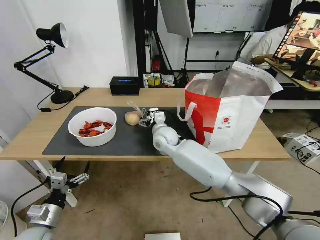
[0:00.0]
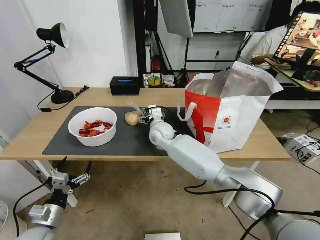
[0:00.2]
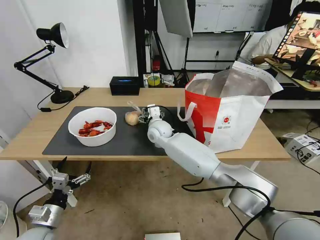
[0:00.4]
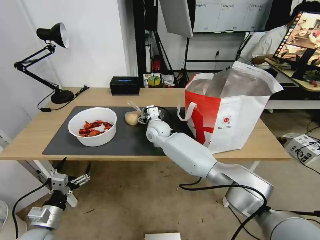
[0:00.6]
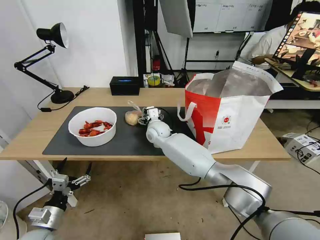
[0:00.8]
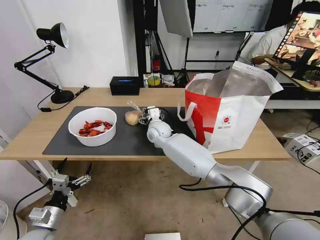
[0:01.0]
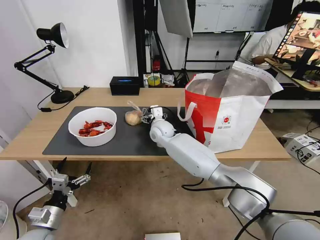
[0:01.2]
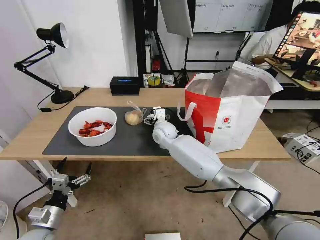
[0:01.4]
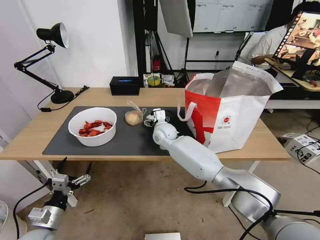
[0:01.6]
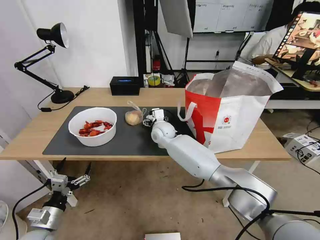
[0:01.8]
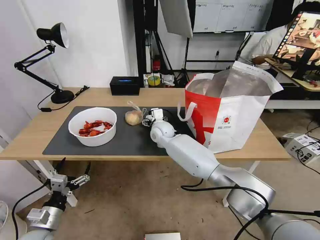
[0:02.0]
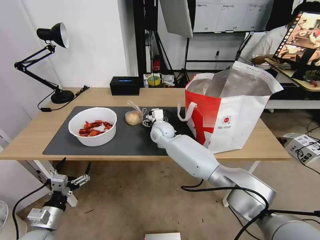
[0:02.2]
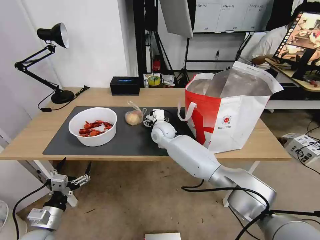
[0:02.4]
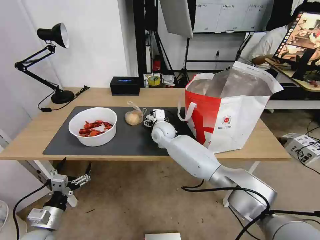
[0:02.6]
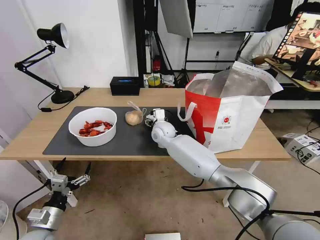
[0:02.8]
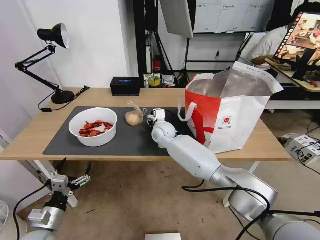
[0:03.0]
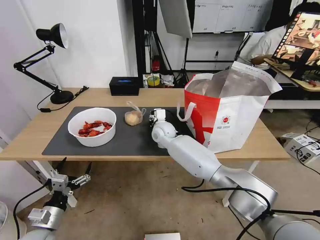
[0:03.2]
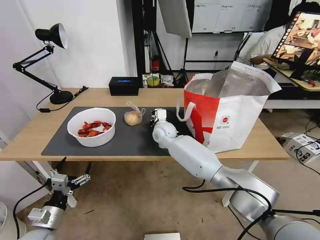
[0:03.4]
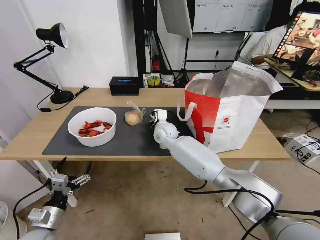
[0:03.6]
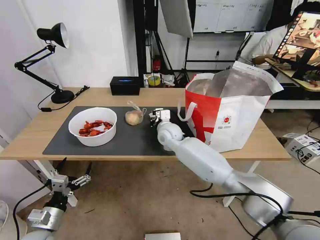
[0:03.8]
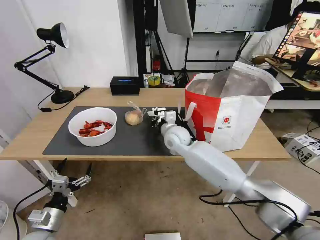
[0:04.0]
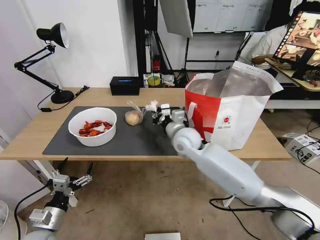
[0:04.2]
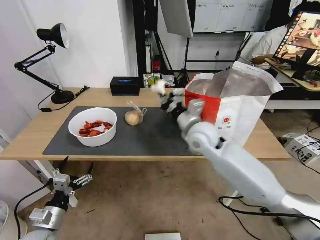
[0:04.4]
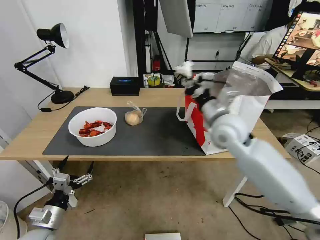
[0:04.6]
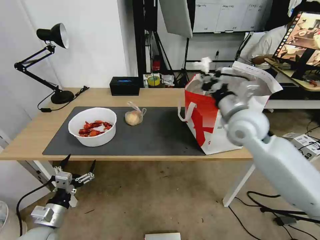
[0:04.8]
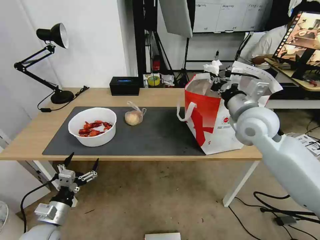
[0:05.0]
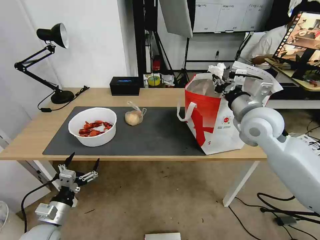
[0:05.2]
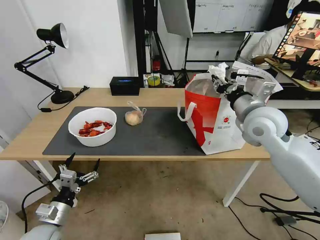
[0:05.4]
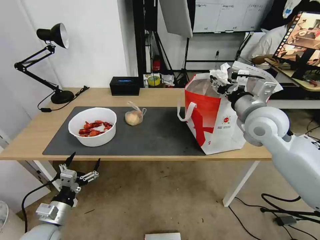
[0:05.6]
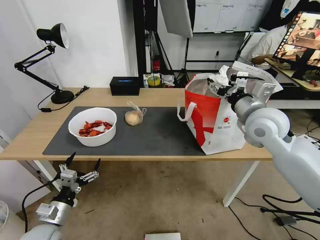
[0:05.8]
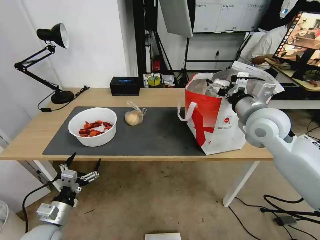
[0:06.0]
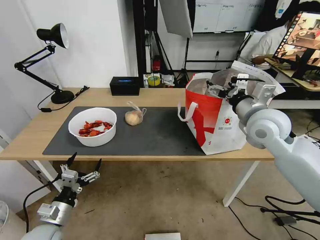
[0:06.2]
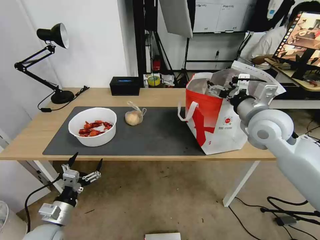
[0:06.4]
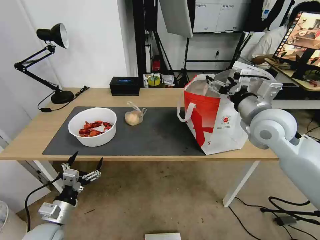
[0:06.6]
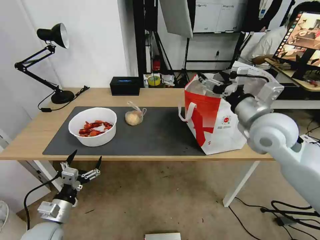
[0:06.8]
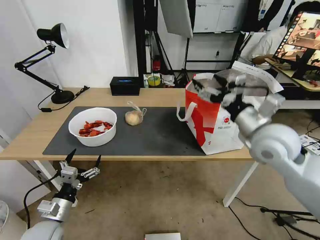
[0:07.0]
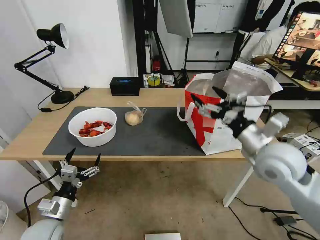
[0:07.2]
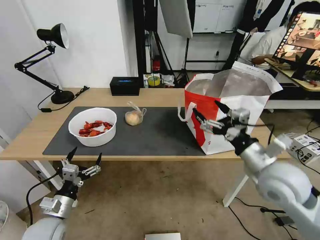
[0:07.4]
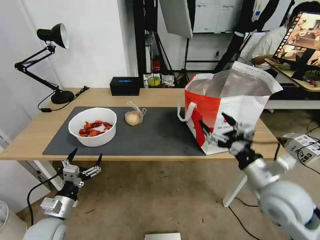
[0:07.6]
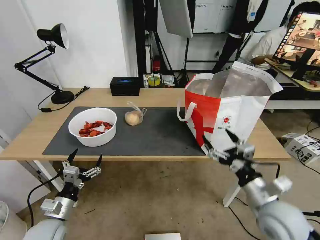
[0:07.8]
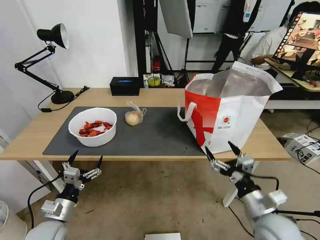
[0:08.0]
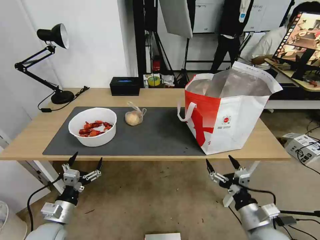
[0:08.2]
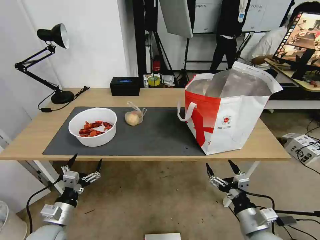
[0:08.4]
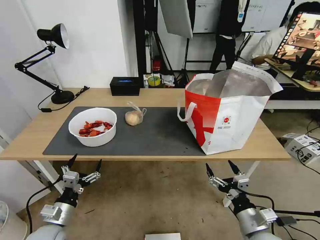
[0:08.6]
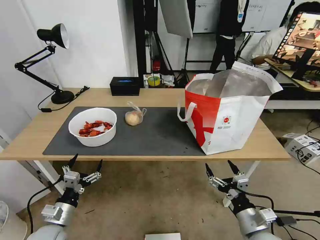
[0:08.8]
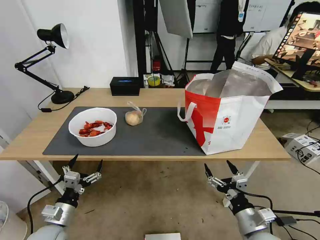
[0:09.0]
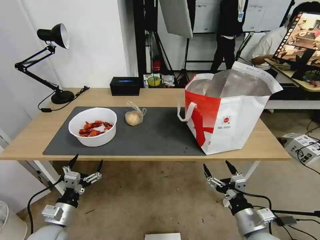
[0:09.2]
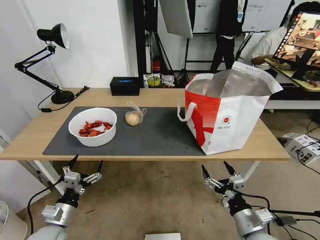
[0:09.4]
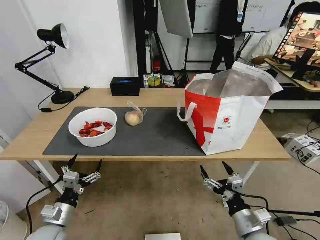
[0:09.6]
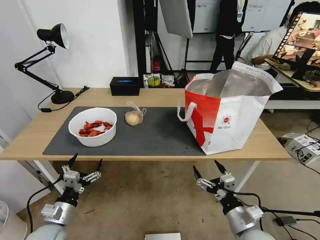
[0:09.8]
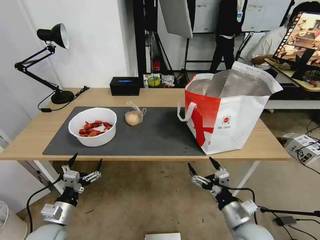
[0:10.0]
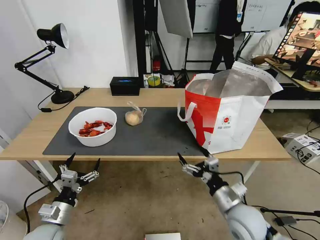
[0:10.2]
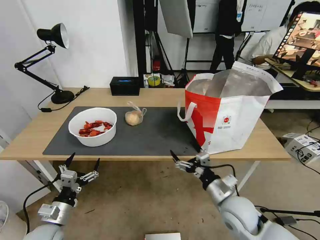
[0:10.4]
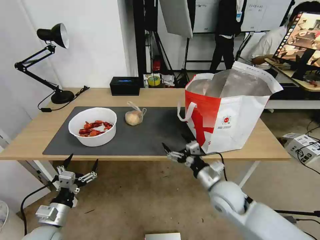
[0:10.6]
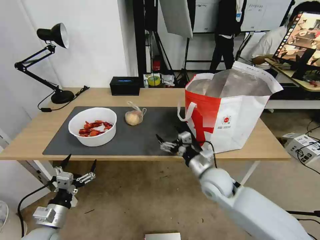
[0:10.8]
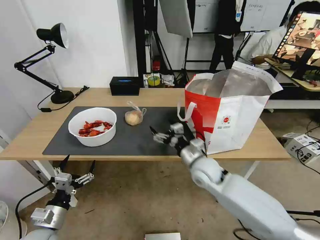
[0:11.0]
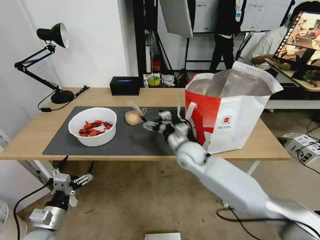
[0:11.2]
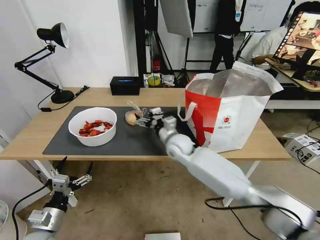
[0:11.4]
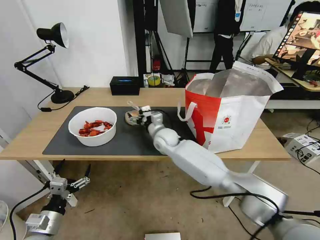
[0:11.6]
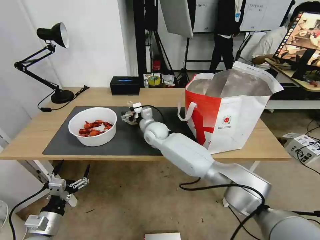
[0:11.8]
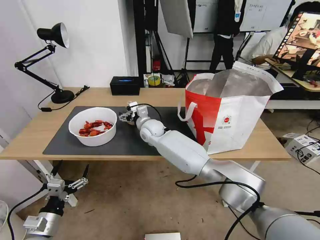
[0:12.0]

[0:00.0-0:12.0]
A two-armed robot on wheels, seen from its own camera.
Task of the whole recording: Pick up the trash from the table and place it into the takeout bag.
0:00.0 to 0:01.6: The grippers stay close to where they were, moving slightly.
0:01.6 to 0:03.0: The right gripper closes its fingers.
0:03.0 to 0:04.4: The right gripper travels to the right, backward and upward by approximately 20 cm, and closes up.
0:04.4 to 0:06.0: The right gripper is displaced to the right and upward by some 20 cm, and opens up.
0:06.0 to 0:07.6: The right gripper shifts roughly 15 cm backward and downward.
0:07.6 to 0:09.0: The right gripper heads downward and backward, covering about 20 cm.
0:09.0 to 0:10.4: The right gripper moves forward and to the left, approximately 10 cm.
0:10.4 to 0:12.0: The right gripper shifts about 40 cm forward and to the left.

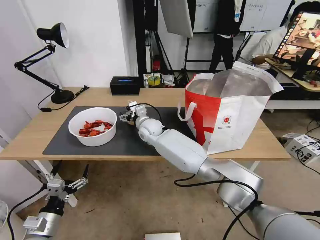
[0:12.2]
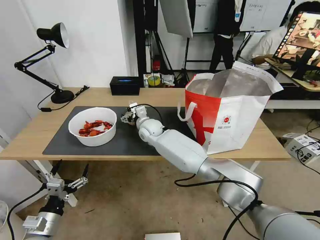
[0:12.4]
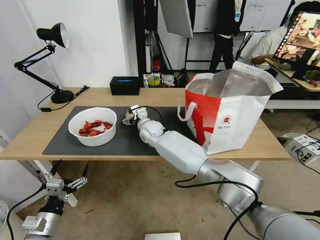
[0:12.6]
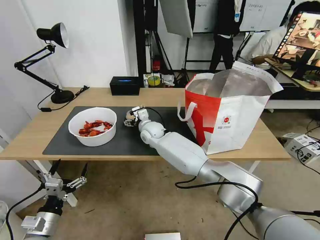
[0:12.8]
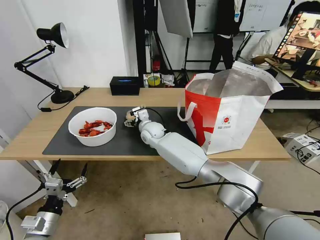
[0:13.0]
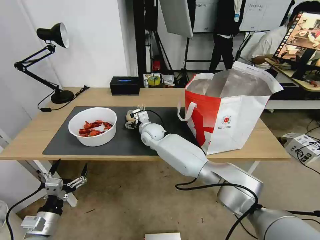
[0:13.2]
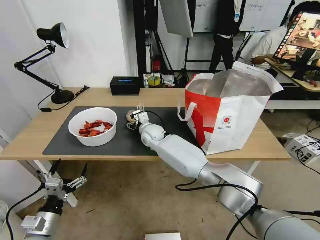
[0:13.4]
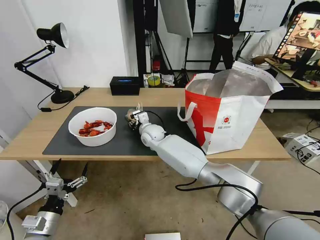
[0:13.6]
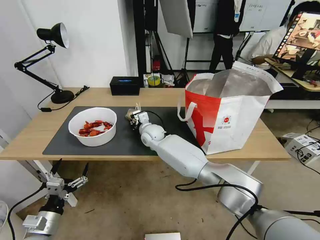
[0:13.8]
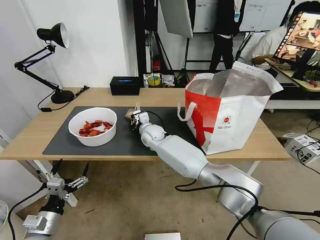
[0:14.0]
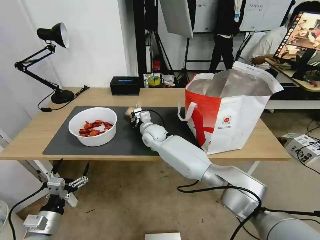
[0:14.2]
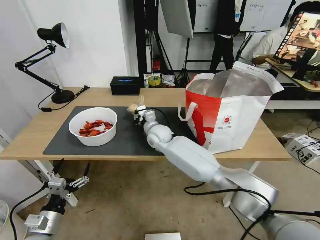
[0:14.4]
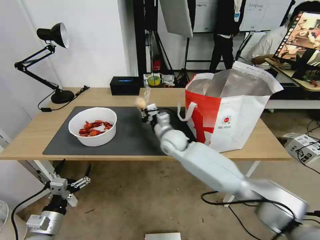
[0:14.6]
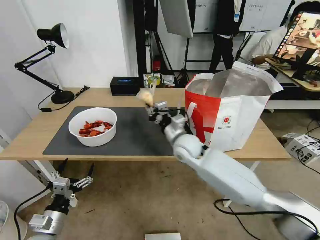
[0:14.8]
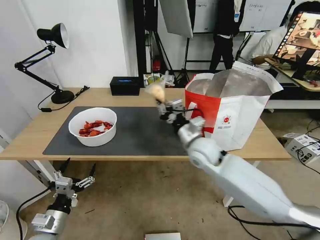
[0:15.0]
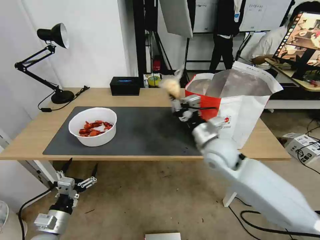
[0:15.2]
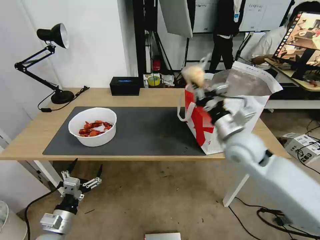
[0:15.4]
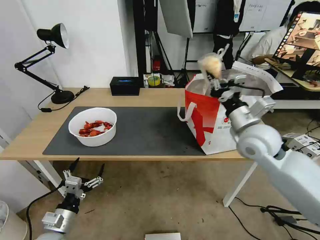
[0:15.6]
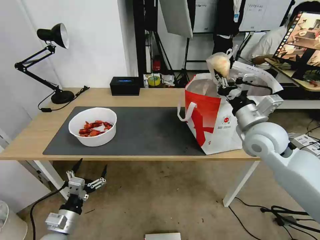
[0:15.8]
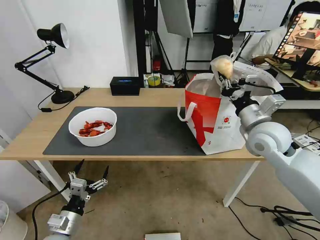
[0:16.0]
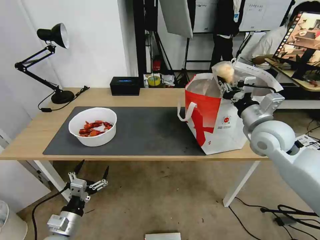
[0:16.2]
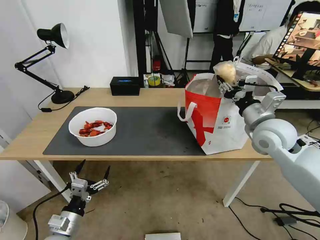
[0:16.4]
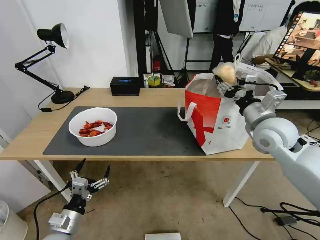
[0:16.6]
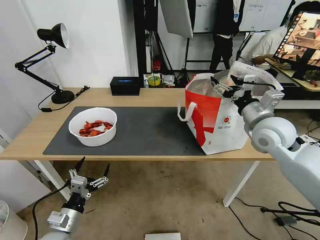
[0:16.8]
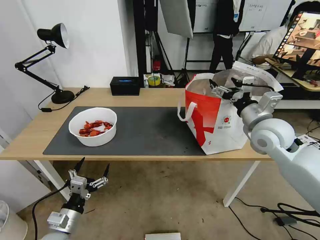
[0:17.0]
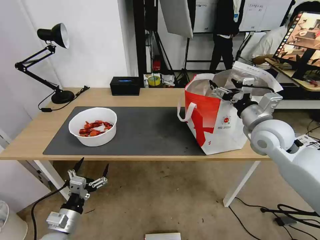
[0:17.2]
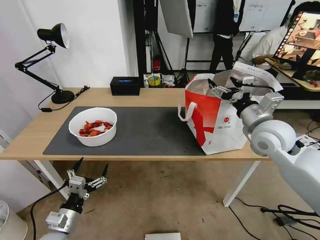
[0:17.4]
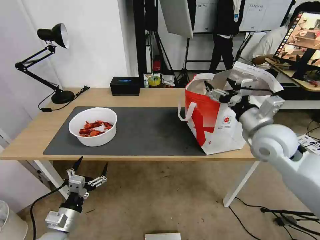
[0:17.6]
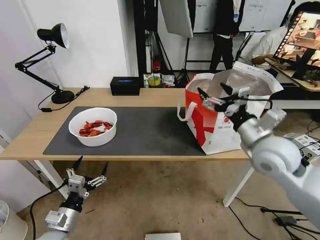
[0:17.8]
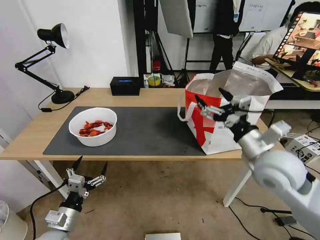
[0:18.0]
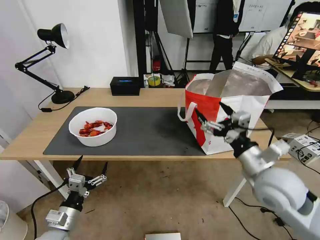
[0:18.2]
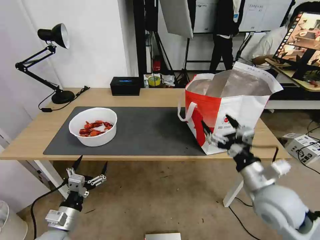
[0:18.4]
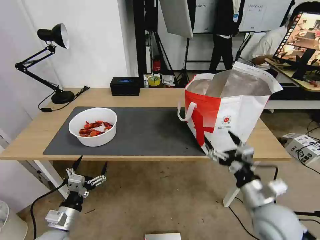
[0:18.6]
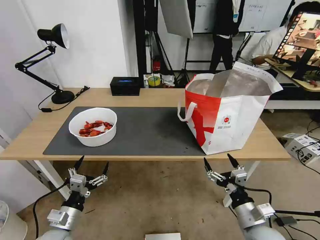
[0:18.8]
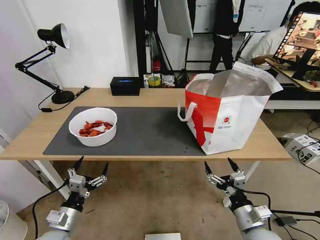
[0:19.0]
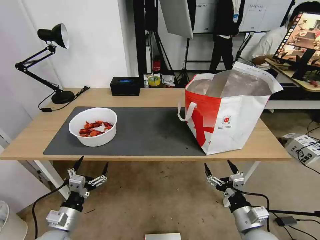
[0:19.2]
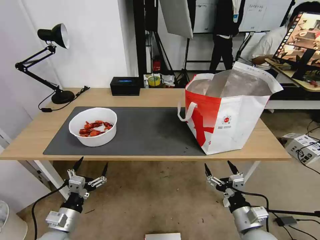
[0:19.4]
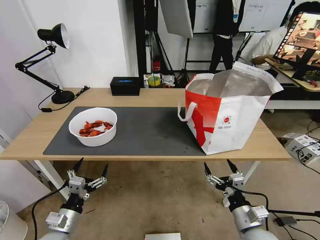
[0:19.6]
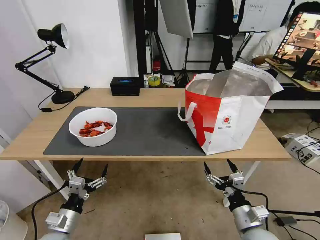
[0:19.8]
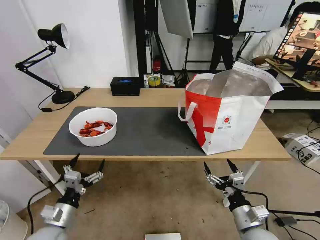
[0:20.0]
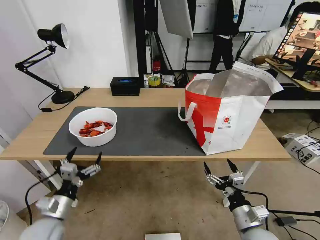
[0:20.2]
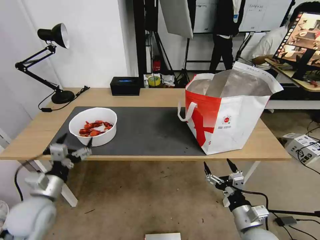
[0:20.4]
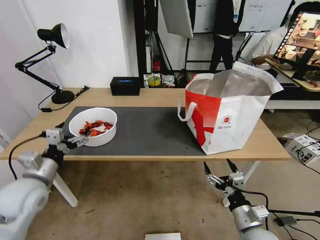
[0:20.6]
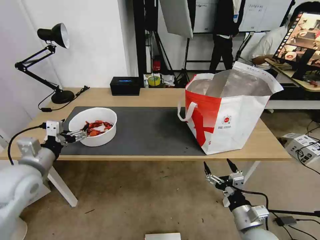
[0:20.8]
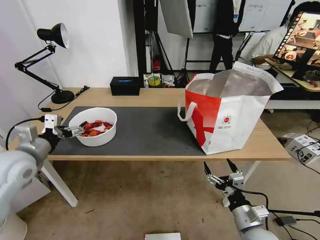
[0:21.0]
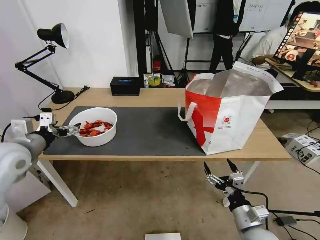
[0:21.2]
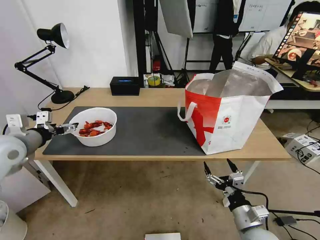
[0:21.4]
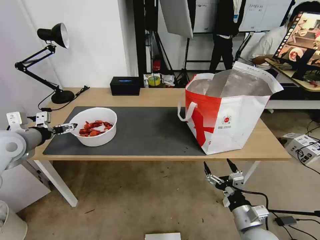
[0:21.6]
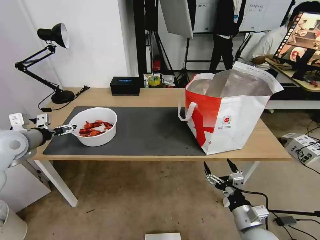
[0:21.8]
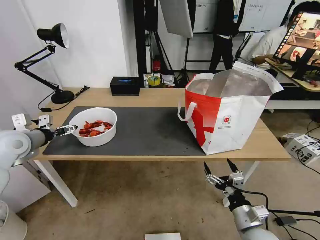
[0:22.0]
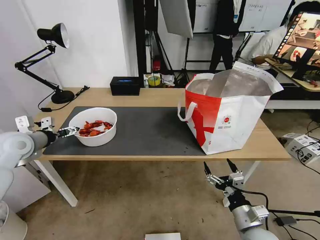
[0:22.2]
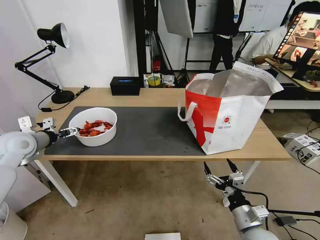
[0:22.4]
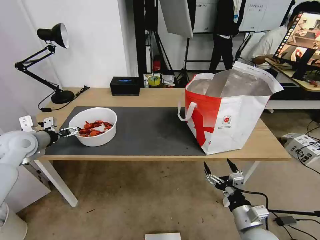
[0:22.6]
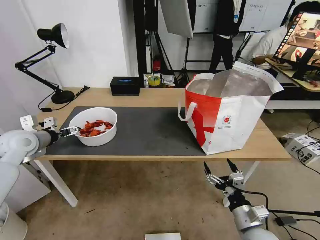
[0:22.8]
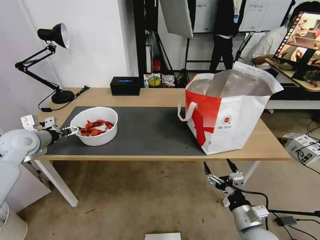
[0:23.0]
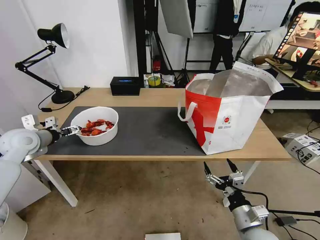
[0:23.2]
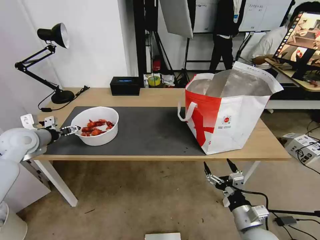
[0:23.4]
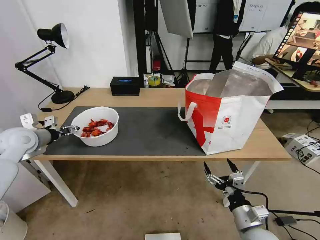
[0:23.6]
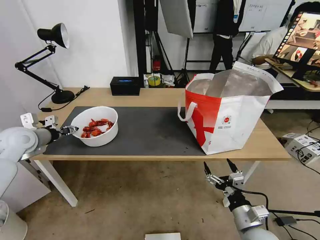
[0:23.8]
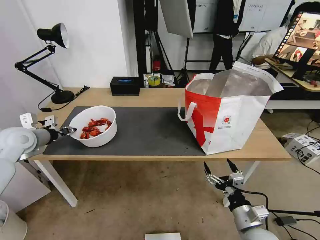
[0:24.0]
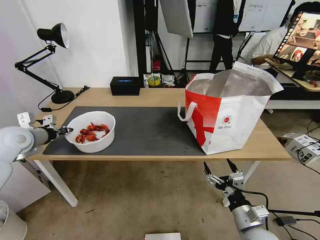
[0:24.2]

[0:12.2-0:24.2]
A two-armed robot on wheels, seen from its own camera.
Task of the whole recording: Pick up the trash from the table and place it into the takeout bag.
0:12.2 to 0:13.8: The right gripper closes up.
0:13.8 to 0:15.2: The right gripper is displaced to the right, backward and upward by some 30 cm.
0:15.2 to 0:16.6: The right gripper goes some 15 cm to the right and upward, and opens its fingers.
0:16.6 to 0:18.2: The right gripper heads backward, covering about 10 cm.
0:18.2 to 0:19.8: The right gripper is displaced downward and backward by roughly 20 cm.
0:19.8 to 0:21.2: The left gripper is displaced upward and forward by about 25 cm.
0:21.2 to 0:22.6: The left gripper moves forward, some 5 cm.
0:22.6 to 0:24.2: The left gripper closes up.
